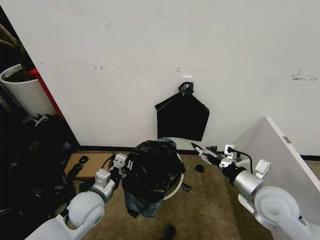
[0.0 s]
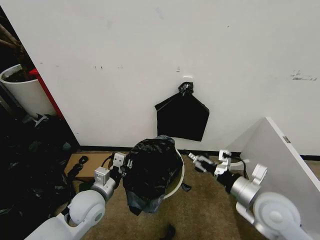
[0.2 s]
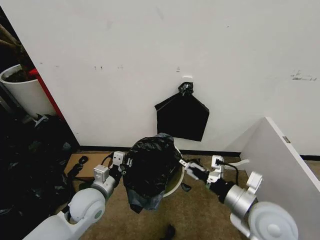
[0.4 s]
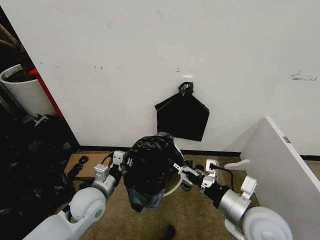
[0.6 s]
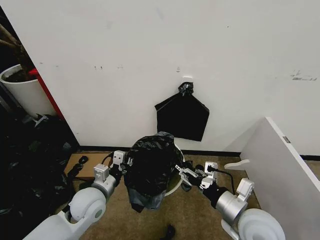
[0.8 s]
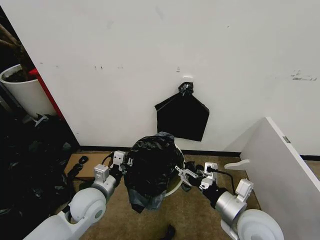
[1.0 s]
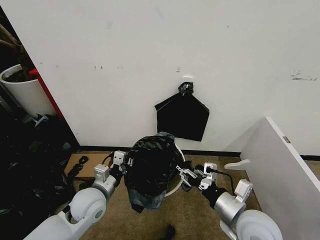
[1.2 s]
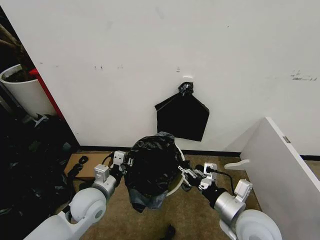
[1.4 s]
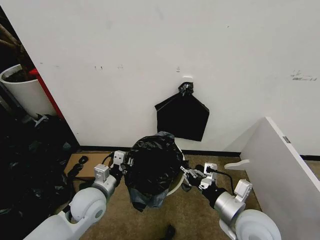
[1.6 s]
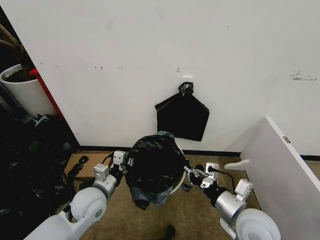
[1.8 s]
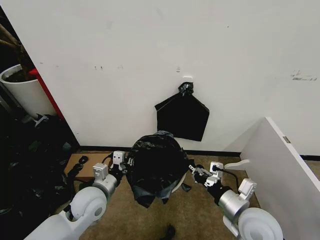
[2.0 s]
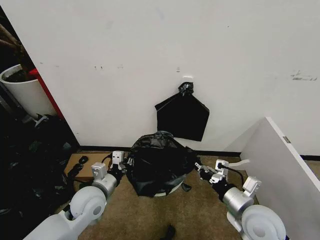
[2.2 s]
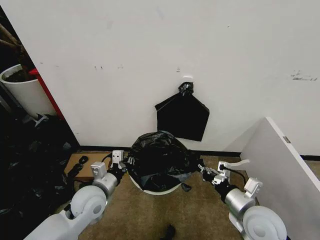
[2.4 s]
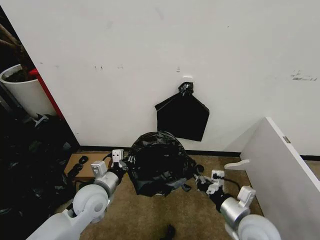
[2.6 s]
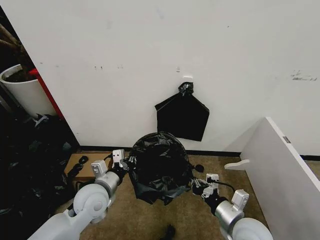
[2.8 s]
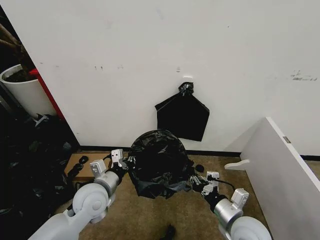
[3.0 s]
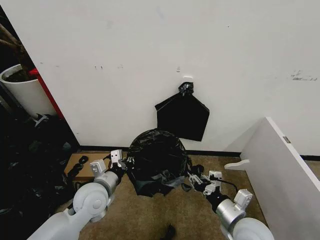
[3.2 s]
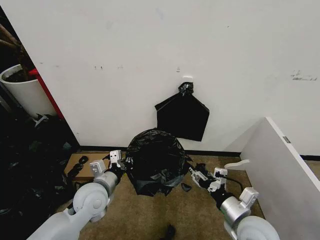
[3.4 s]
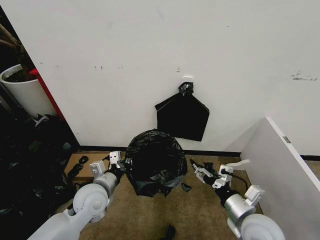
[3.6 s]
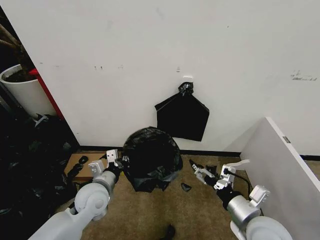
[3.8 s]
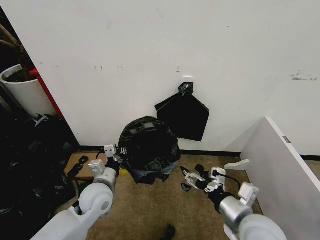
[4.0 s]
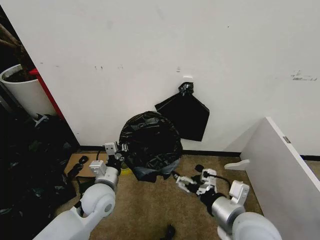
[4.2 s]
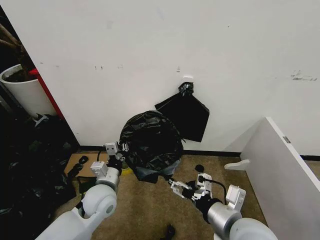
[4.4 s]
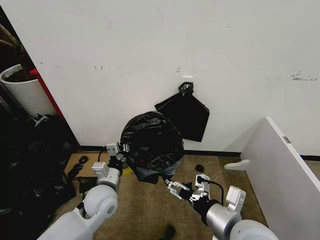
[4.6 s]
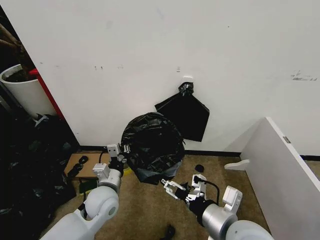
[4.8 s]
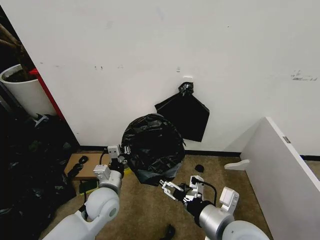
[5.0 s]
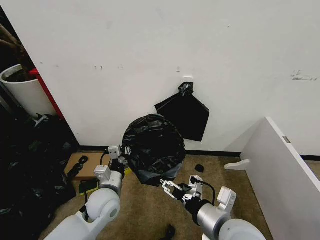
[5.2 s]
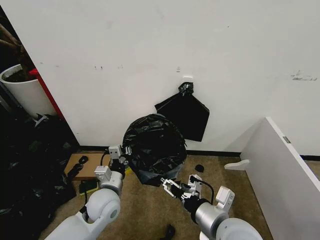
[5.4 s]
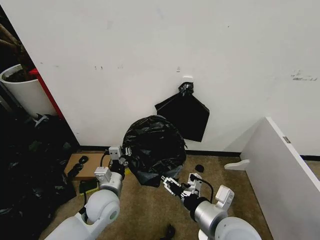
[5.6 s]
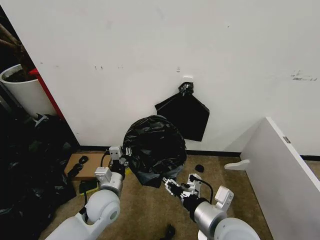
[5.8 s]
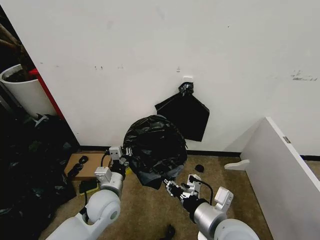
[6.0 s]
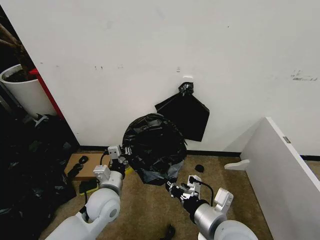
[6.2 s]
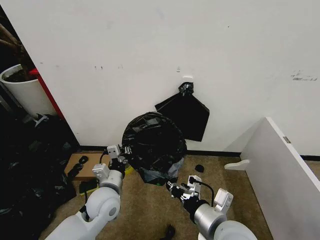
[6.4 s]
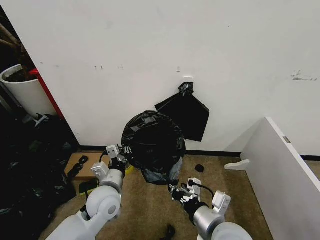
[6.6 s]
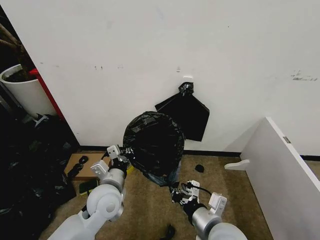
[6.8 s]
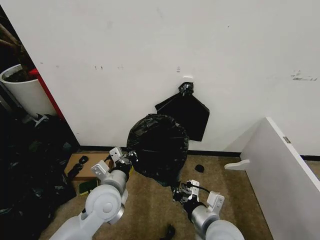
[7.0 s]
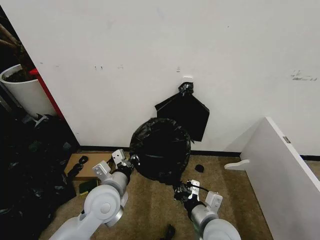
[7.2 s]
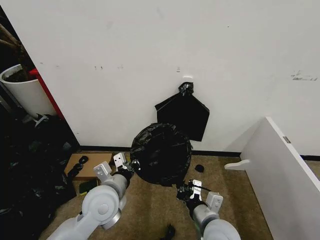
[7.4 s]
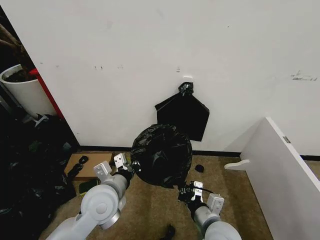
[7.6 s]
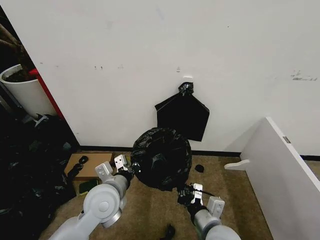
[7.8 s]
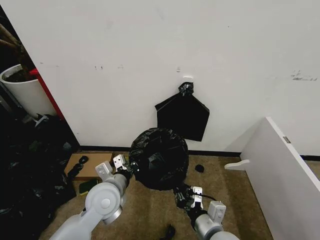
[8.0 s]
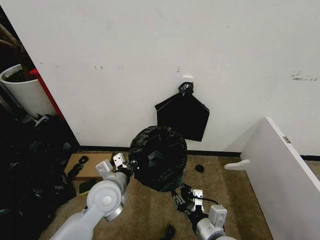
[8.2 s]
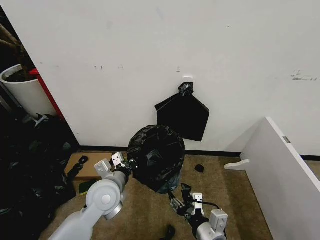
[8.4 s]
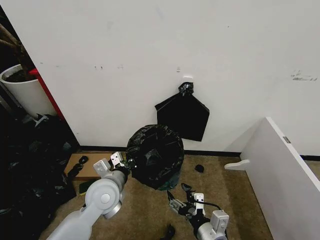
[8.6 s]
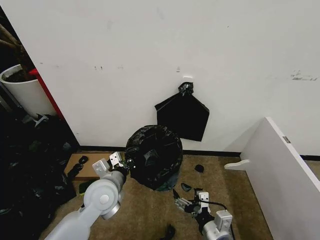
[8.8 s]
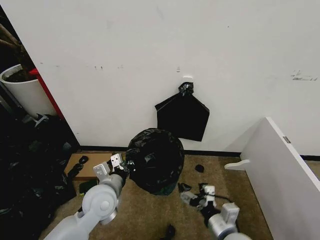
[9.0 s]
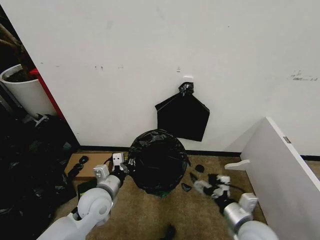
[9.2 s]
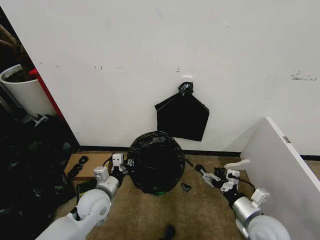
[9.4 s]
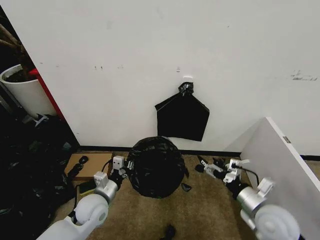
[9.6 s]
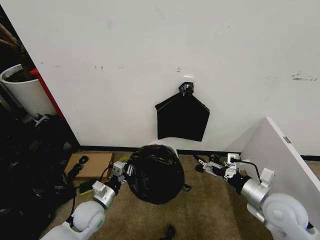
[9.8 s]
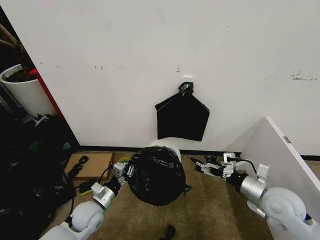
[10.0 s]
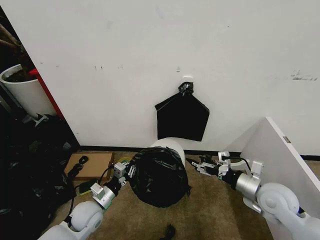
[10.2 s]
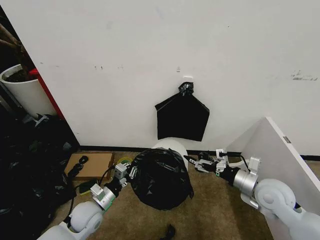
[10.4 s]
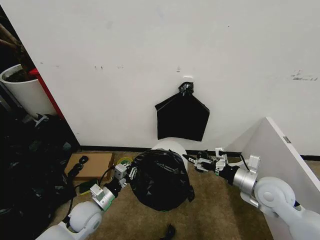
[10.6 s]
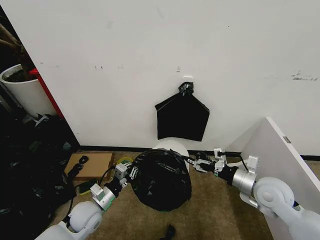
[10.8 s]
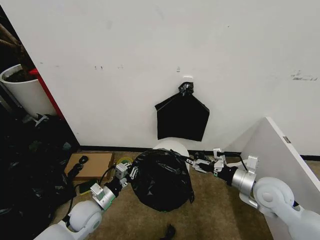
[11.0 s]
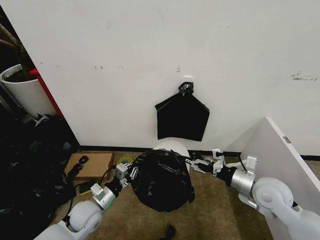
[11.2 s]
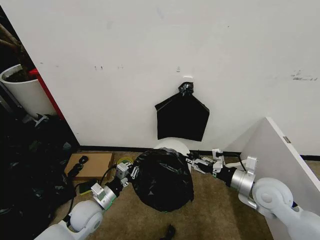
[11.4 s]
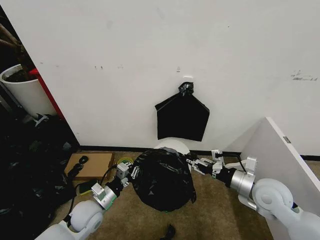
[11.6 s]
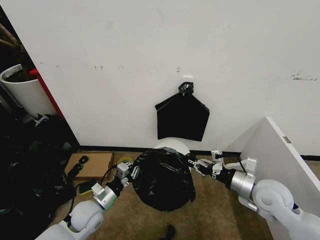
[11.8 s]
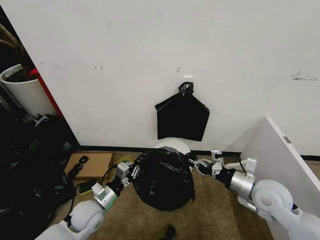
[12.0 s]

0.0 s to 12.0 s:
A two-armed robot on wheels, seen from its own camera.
Task of the whole recording: Place the garbage bag over the trash bin.
0.0 to 1.6 s: The right gripper moves to the left and backward, about 10 cm, and closes.
1.6 to 3.0 s: The right gripper goes approximately 5 cm downward.
3.0 to 4.4 s: The right gripper heads upward, covering roughly 10 cm, and opens up.
4.4 to 6.0 s: The right gripper closes.
6.0 to 7.6 s: The left gripper travels upward by roughly 5 cm; the right gripper goes approximately 10 cm downward.
7.6 to 9.0 s: The left gripper moves about 5 cm; the right gripper opens its fingers.
9.0 to 10.4 s: The left gripper is displaced downward and to the left by approximately 10 cm; the right gripper goes some 20 cm forward, to the right and upward.
10.4 to 12.0 s: The right gripper closes.

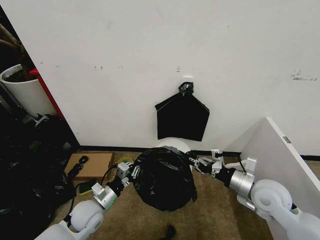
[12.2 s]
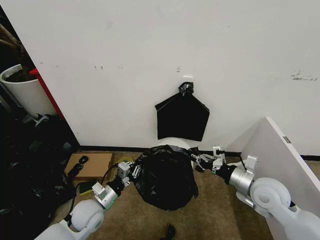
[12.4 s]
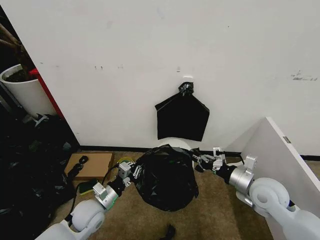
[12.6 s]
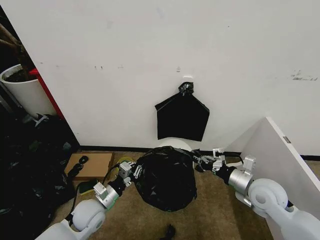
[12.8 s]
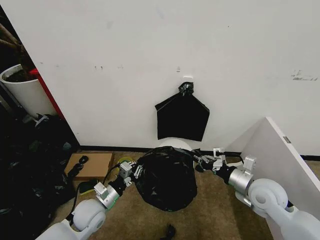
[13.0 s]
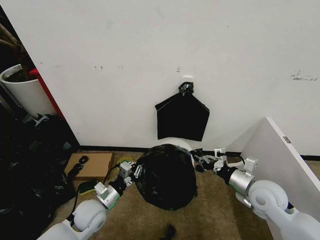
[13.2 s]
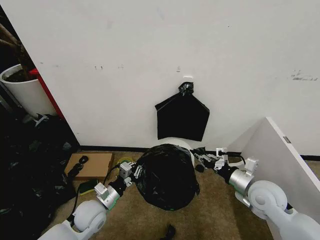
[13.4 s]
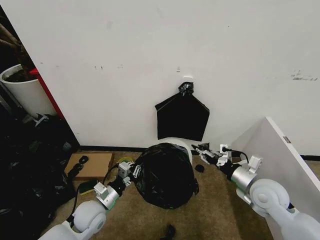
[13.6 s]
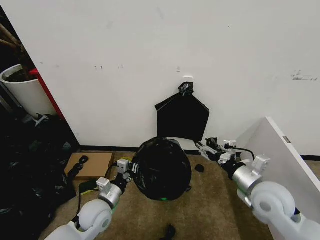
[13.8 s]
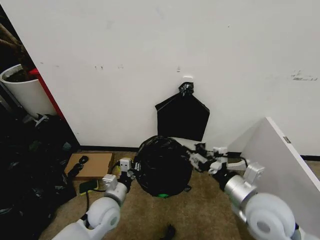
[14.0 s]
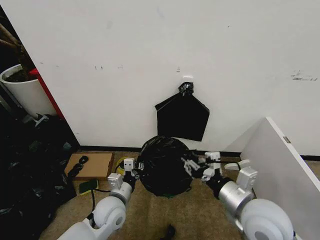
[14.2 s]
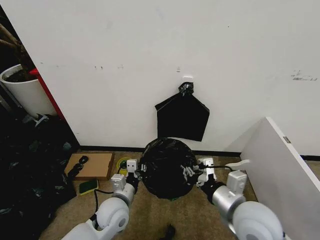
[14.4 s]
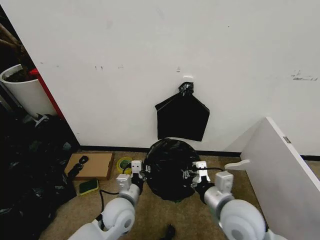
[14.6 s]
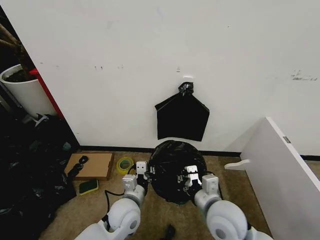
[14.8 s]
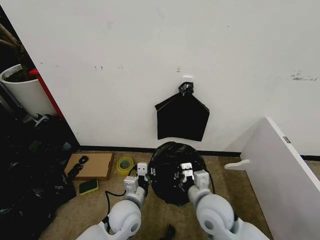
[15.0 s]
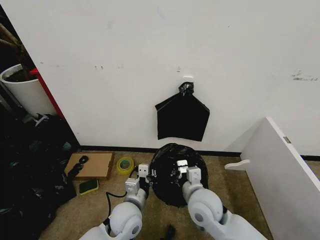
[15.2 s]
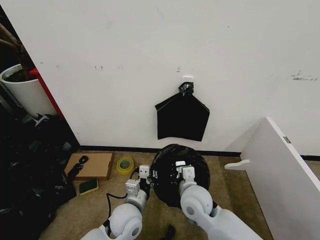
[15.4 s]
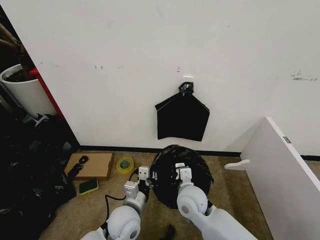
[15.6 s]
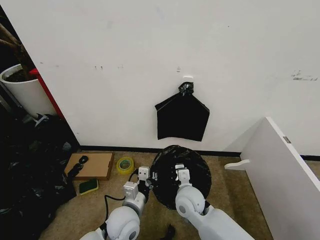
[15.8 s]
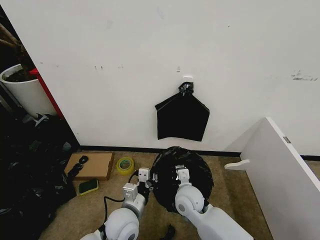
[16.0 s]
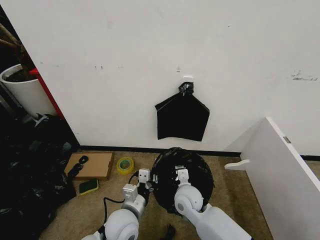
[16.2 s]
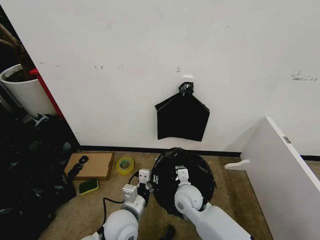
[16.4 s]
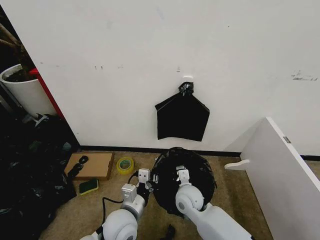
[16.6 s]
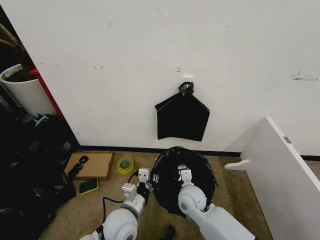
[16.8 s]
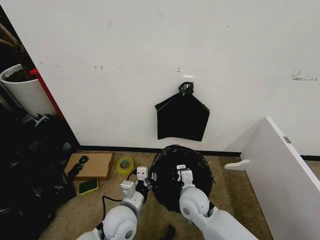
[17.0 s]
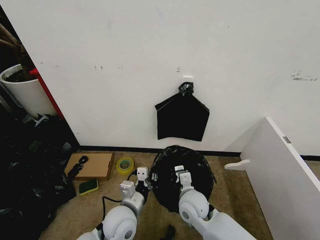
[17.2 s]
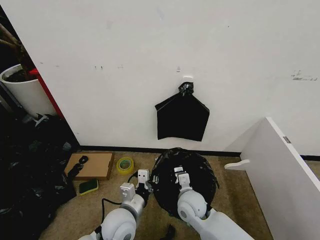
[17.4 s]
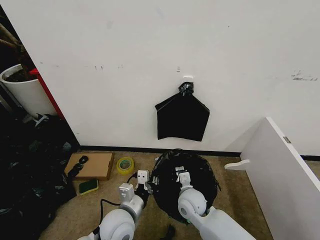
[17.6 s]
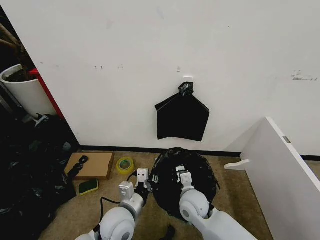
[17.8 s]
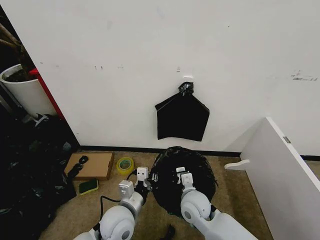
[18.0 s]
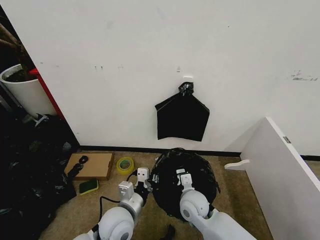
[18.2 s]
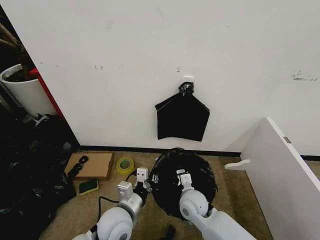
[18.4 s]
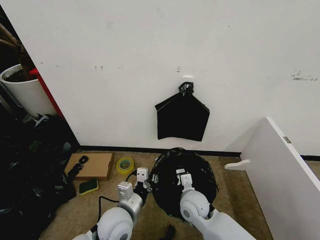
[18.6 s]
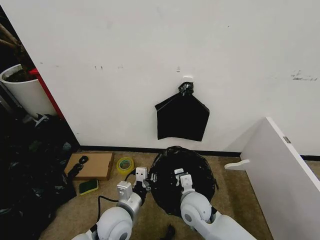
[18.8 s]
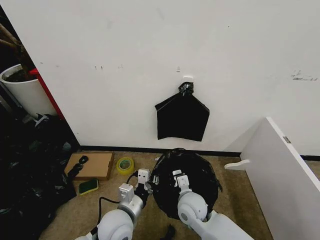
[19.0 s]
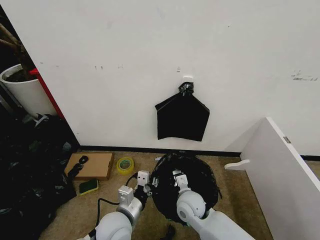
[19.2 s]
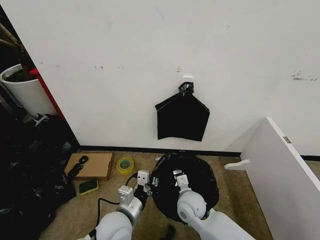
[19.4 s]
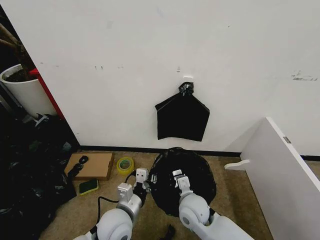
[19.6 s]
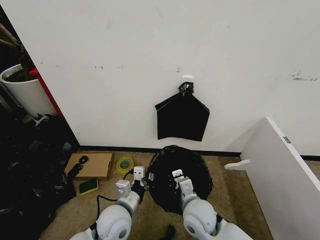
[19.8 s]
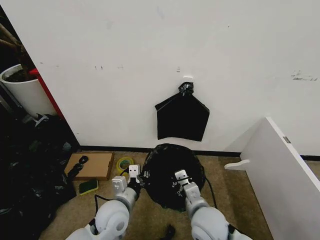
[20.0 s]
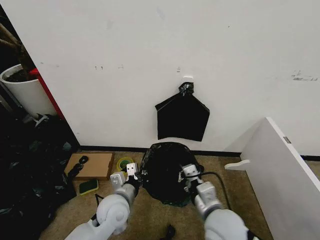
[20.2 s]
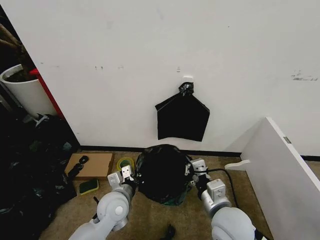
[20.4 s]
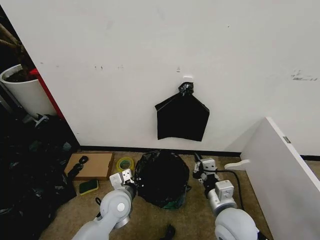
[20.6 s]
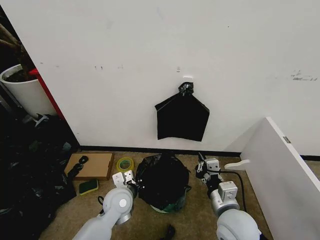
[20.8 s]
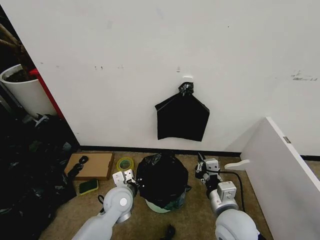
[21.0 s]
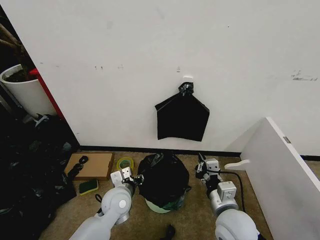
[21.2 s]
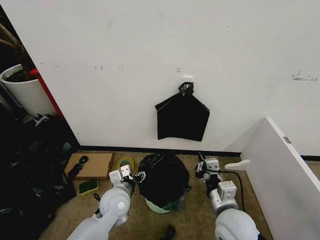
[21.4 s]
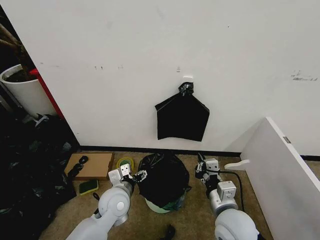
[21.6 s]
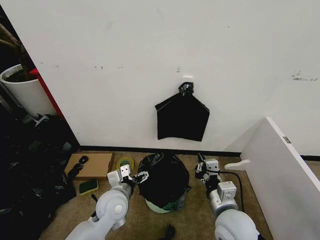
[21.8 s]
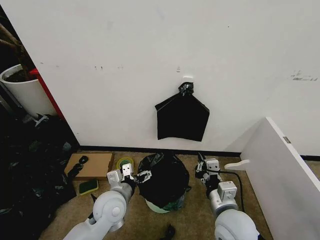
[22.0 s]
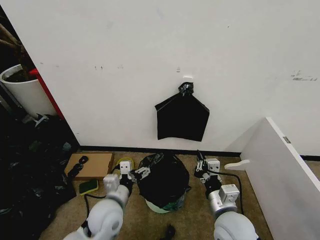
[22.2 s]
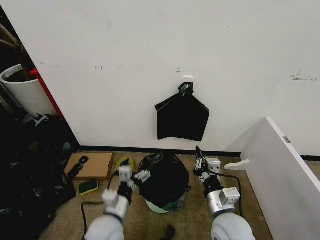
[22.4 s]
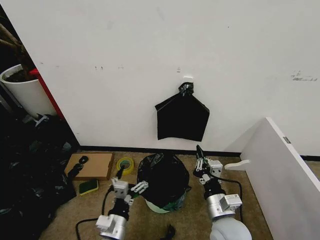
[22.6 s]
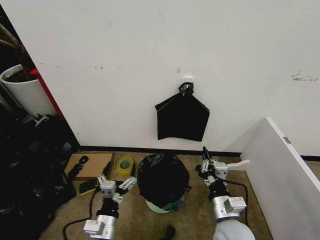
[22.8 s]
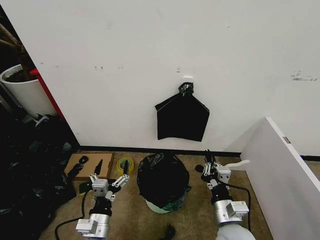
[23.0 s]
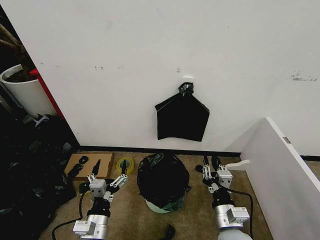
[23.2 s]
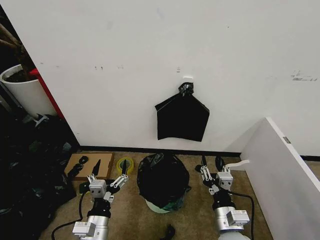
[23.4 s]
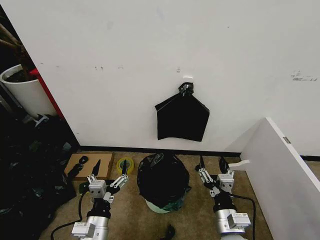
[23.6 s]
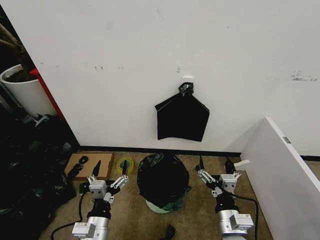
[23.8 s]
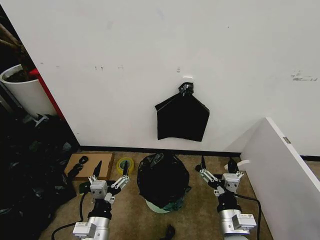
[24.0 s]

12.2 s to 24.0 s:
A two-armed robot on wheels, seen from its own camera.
Task of the whole recording: Place the garbage bag over the trash bin.
12.2 to 13.6 s: The right gripper opens up.
13.6 to 15.2 s: The right gripper goes about 20 cm to the left, and closes; the left gripper heads to the right, covering about 15 cm.
15.2 to 16.6 s: The right gripper shifts some 10 cm downward and forward.
16.6 to 19.6 s: The grippers stay close to where they were, moving slightly.
19.6 to 21.0 s: The right gripper moves to the right, upward and backward, about 15 cm. Meanwhile the left gripper heads forward, covering roughly 10 cm.
21.0 to 22.6 s: The left gripper moves backward, approximately 15 cm, and opens.
22.6 to 24.0 s: The right gripper opens up.
